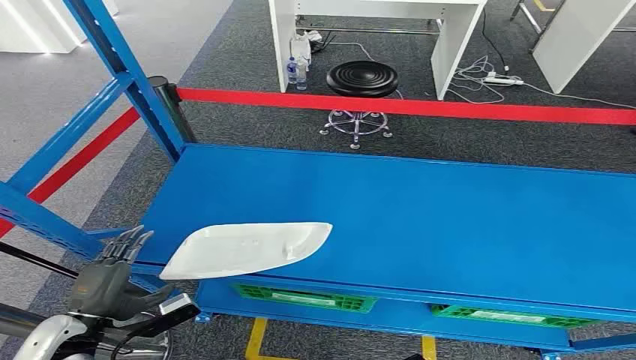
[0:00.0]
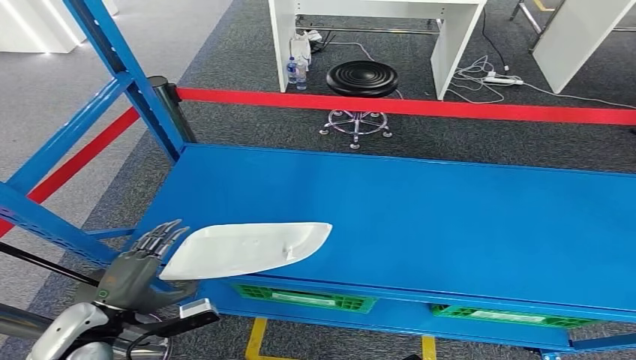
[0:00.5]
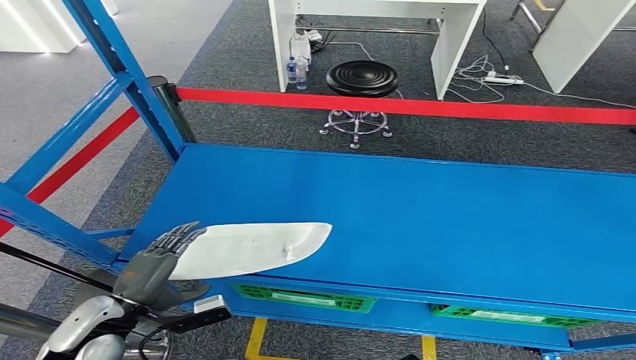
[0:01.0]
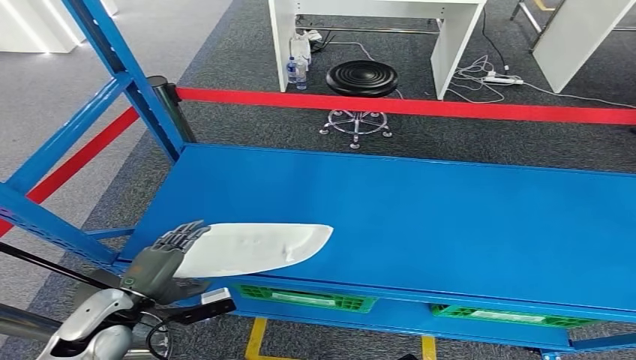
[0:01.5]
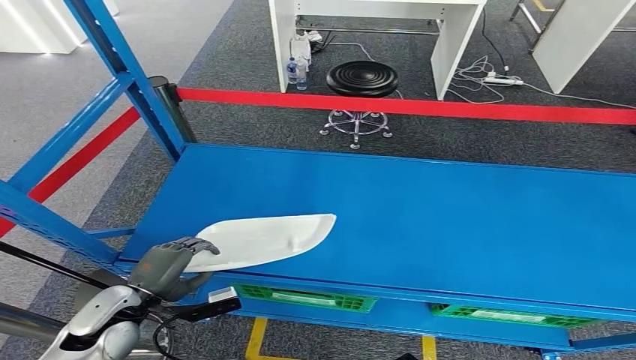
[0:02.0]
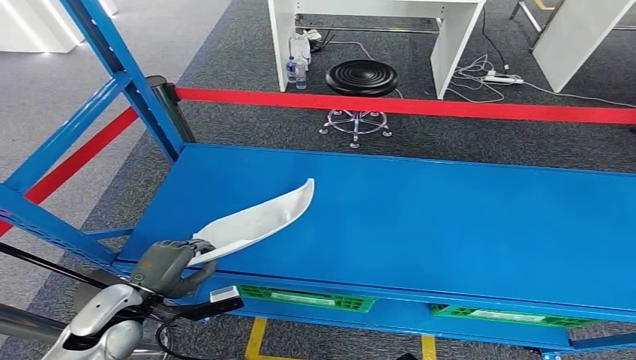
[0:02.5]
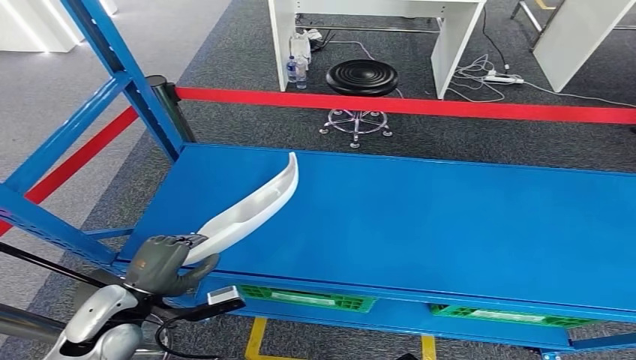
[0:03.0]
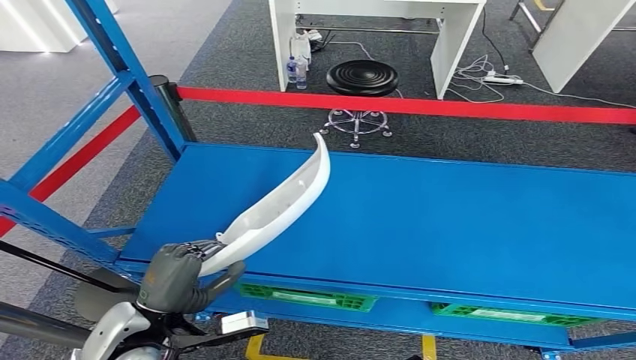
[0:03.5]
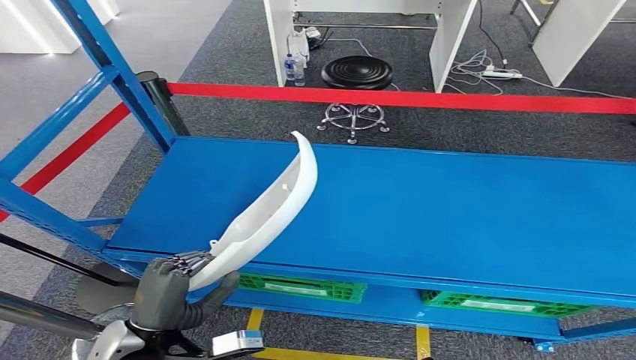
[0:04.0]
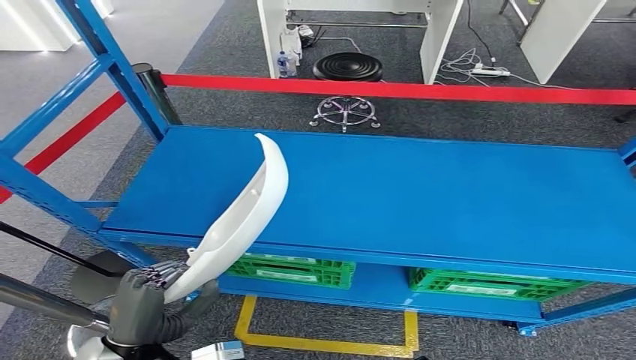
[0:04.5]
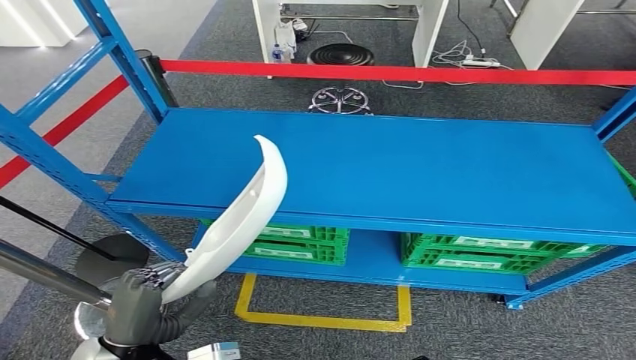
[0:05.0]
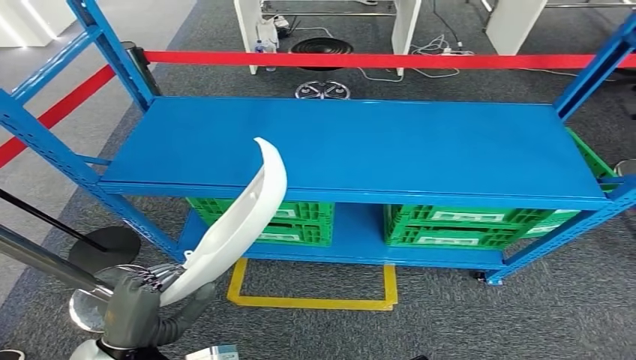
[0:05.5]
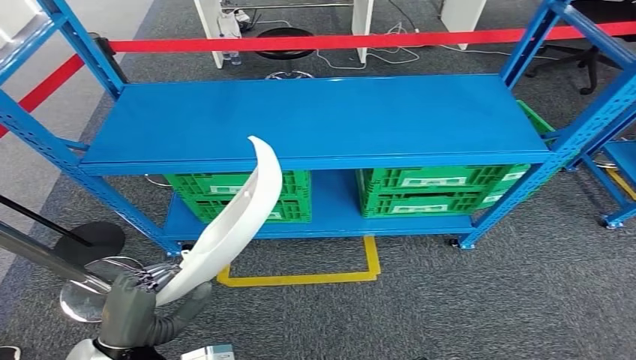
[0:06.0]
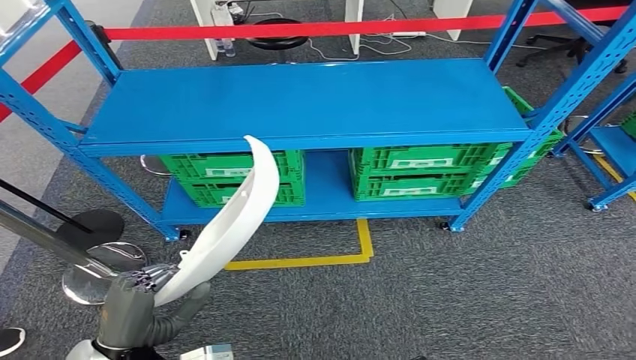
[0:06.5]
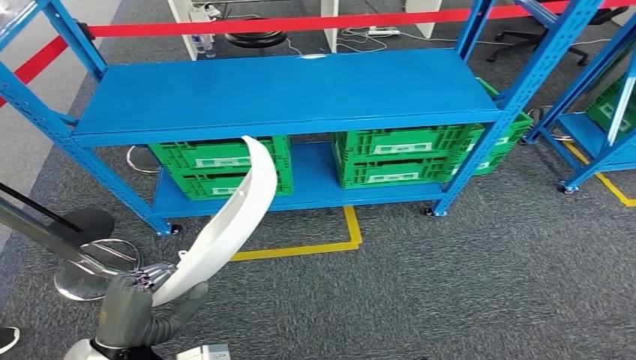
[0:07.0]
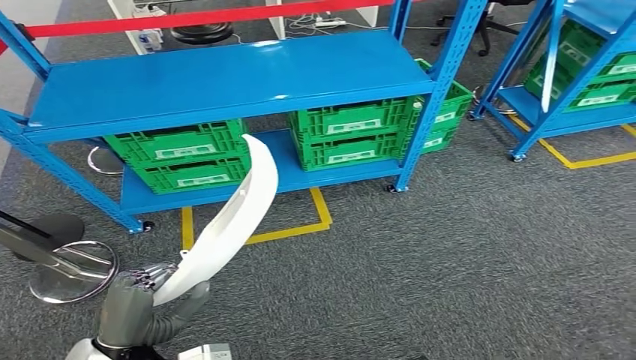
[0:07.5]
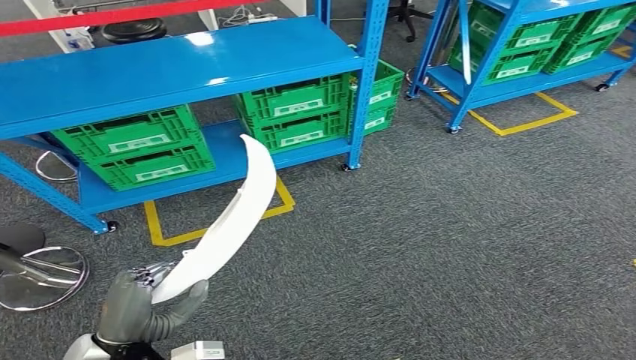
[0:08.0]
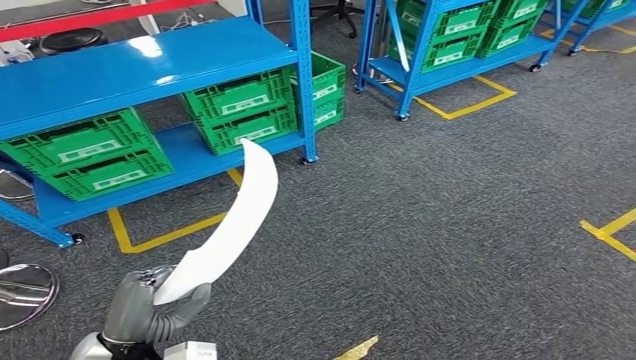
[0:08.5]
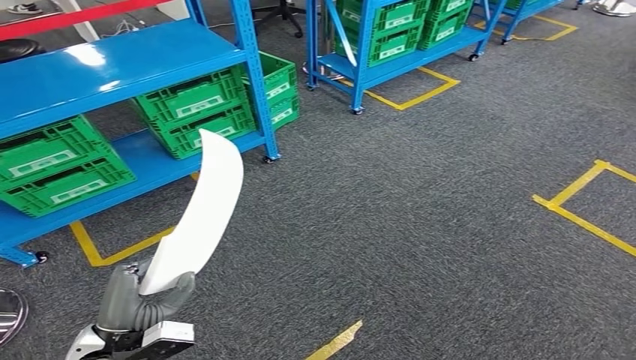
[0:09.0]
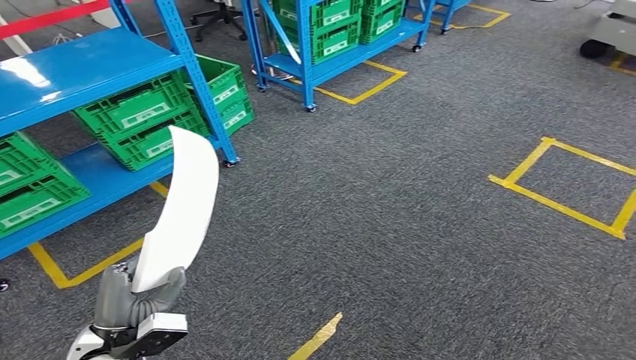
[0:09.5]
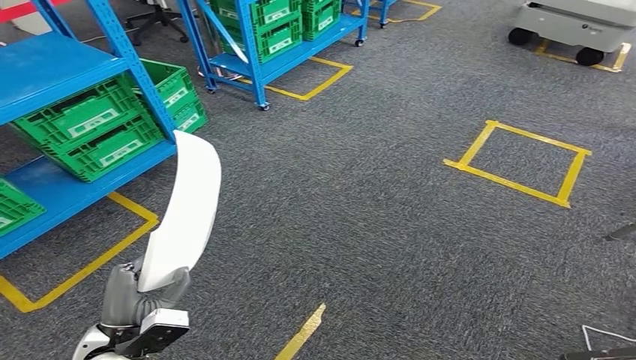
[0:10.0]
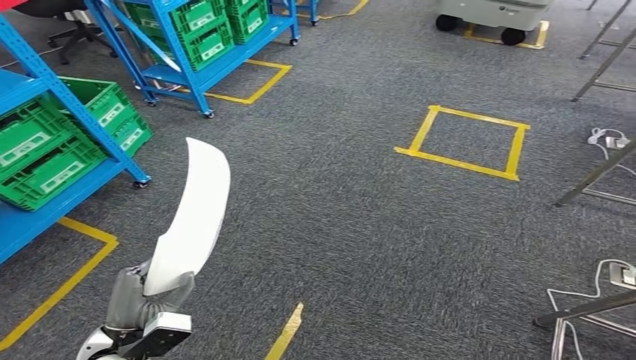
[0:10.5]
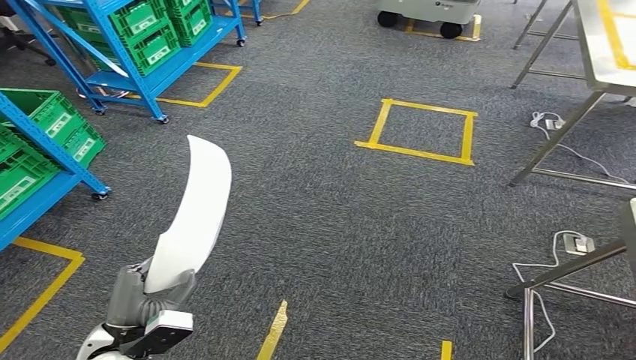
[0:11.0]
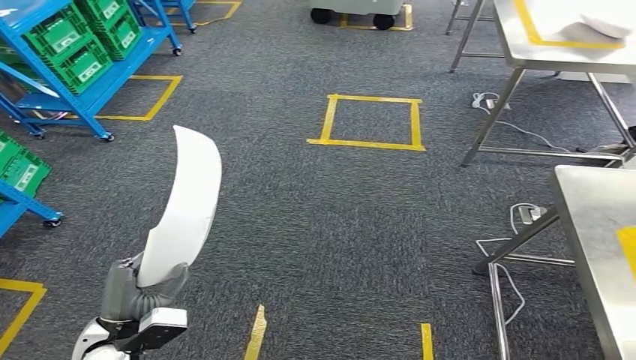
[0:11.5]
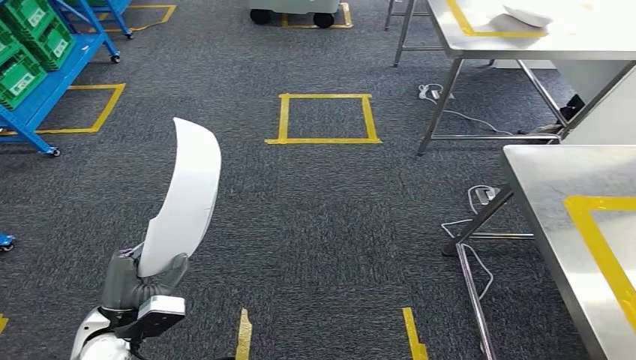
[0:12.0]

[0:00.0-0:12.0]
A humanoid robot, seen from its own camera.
Step, 0:00.0 to 0:04.5: Pick up the small component from the shelf.

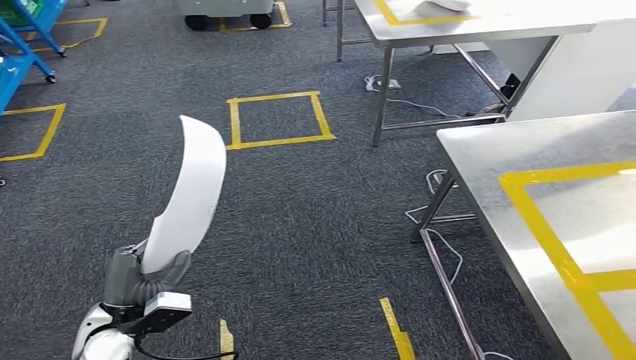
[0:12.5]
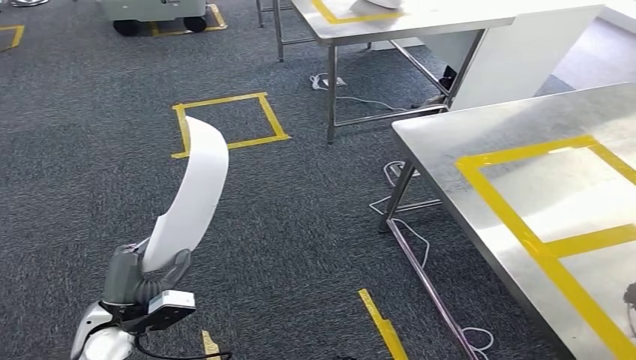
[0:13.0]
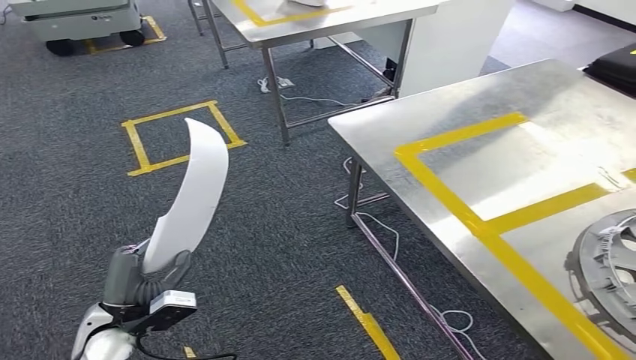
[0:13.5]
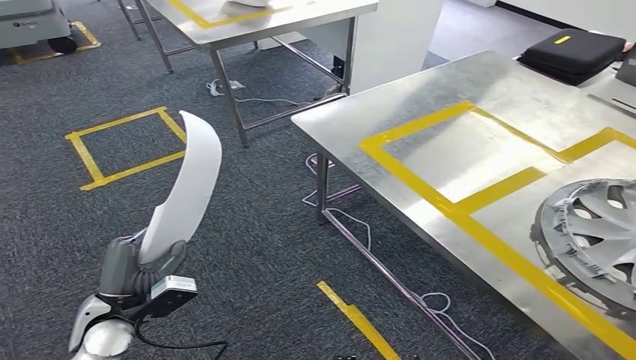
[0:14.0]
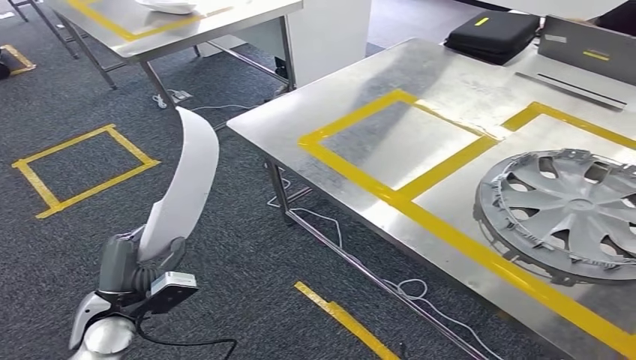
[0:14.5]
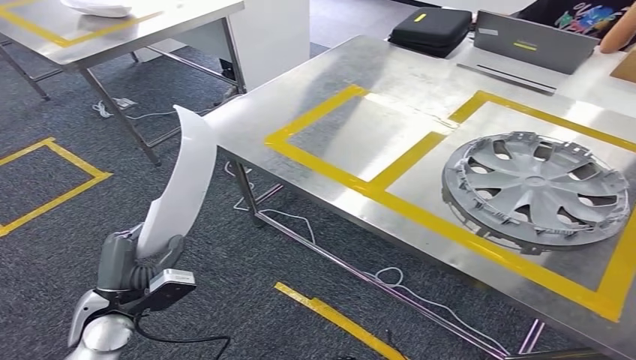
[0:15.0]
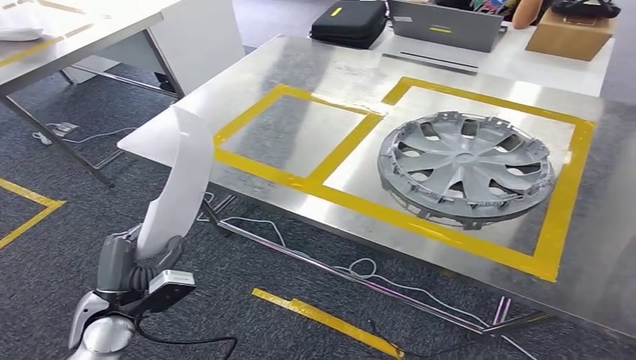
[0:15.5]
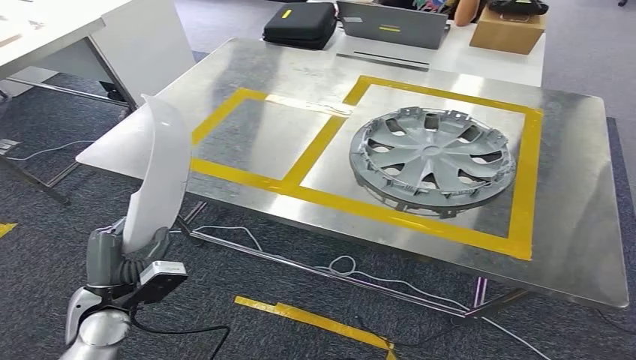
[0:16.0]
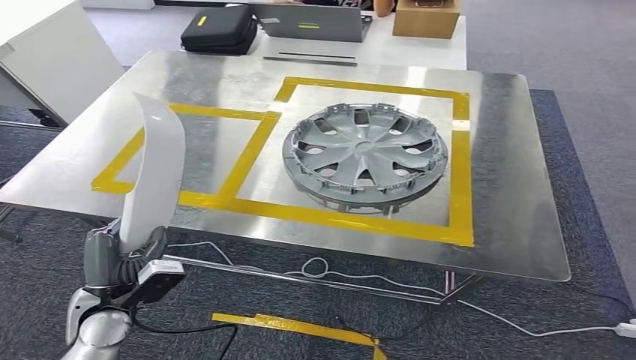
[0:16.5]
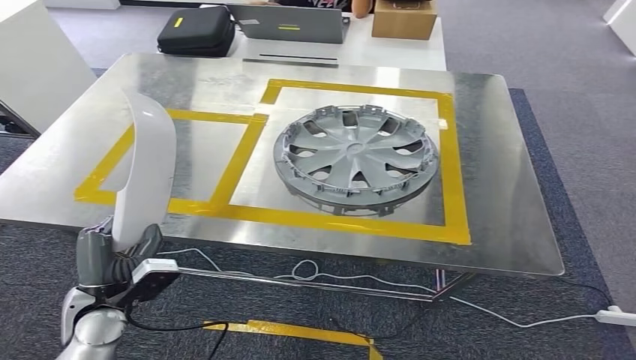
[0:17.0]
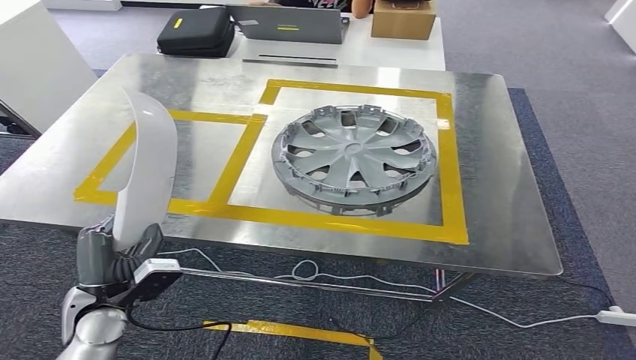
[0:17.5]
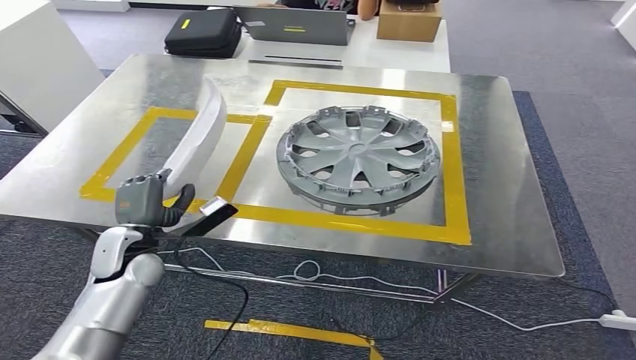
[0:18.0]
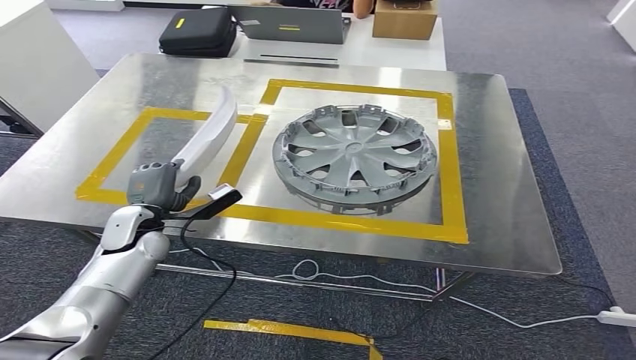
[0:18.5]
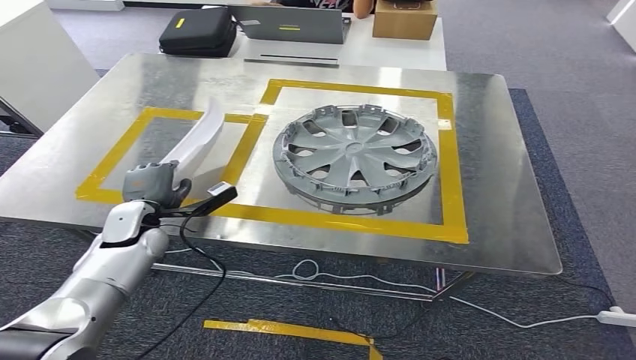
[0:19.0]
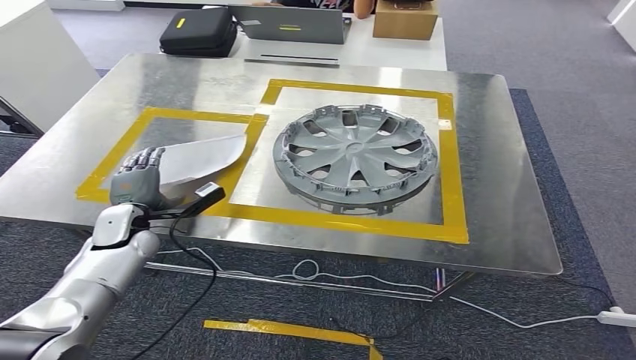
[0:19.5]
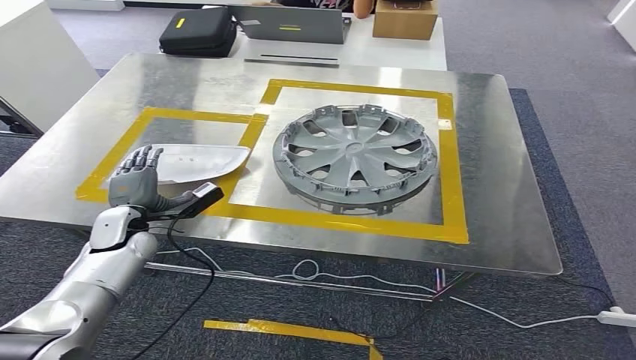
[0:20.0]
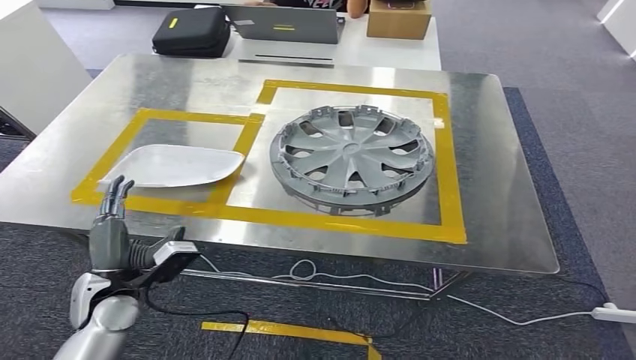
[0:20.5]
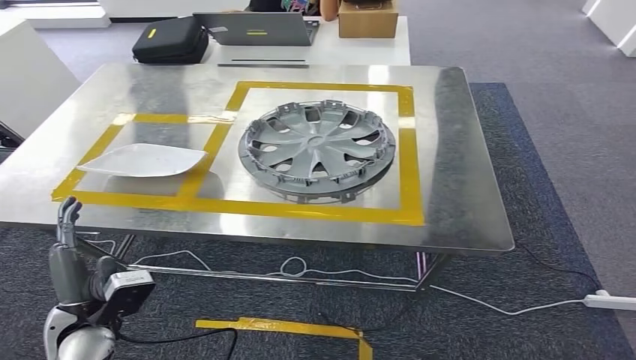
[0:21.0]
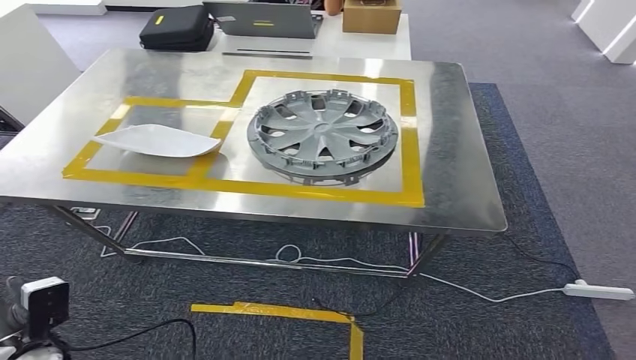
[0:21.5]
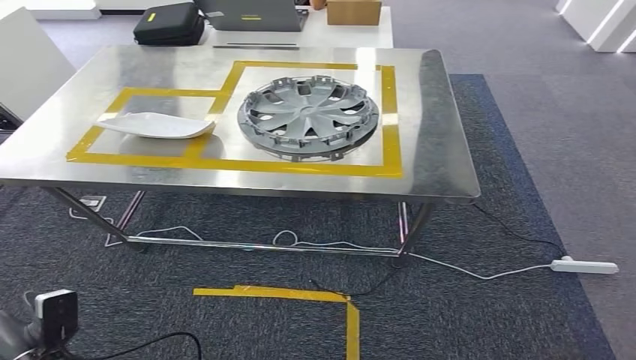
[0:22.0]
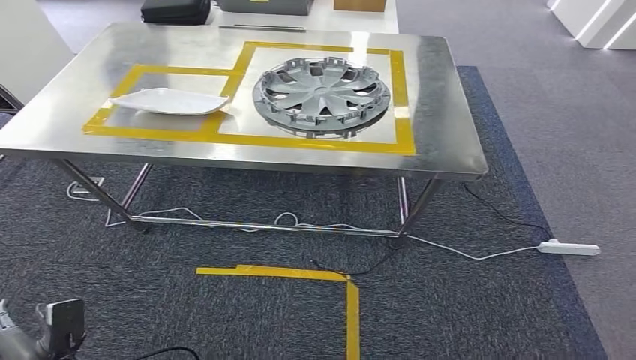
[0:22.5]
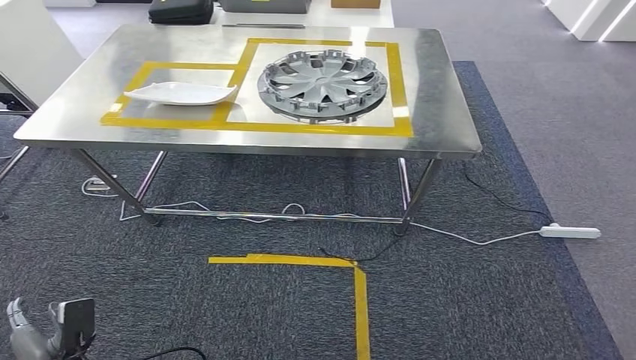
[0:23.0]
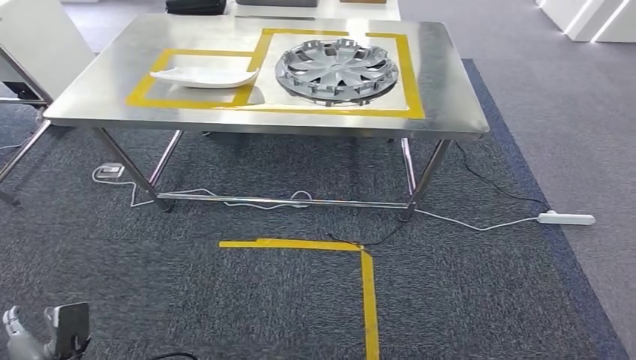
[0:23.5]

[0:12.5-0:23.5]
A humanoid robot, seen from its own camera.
Step, 0:12.5 to 0:17.5: Move the small component to the workbench.
Step, 0:18.0 to 0:21.0: Insert the small component into the corresponding slot on the workbench.
0:18.0 to 0:20.0: The left hand goes some 5 cm forward.
